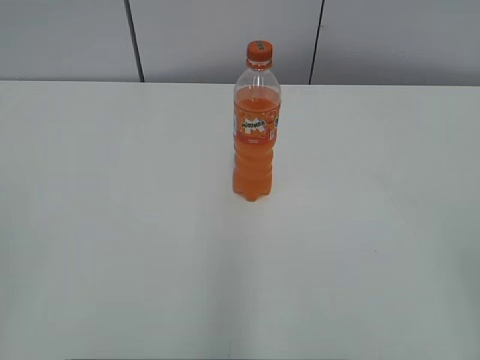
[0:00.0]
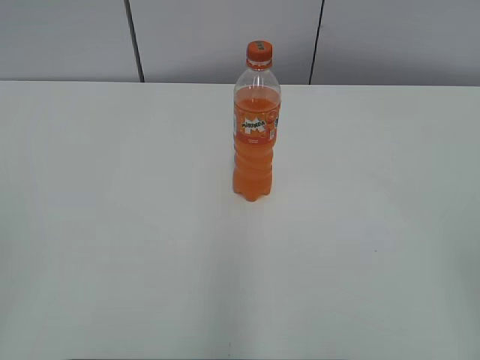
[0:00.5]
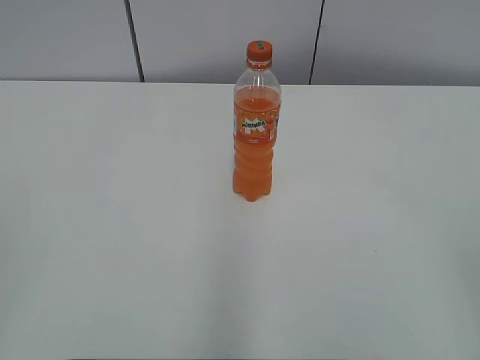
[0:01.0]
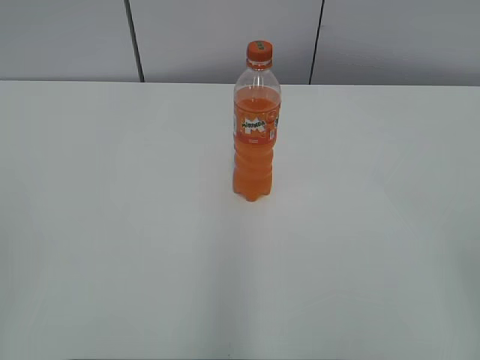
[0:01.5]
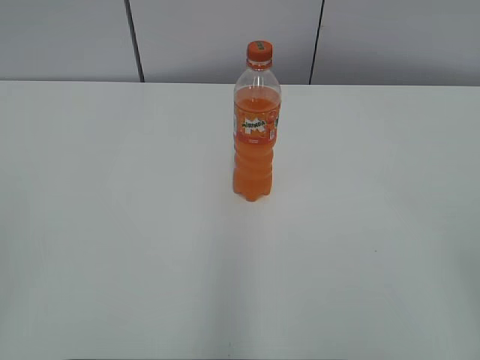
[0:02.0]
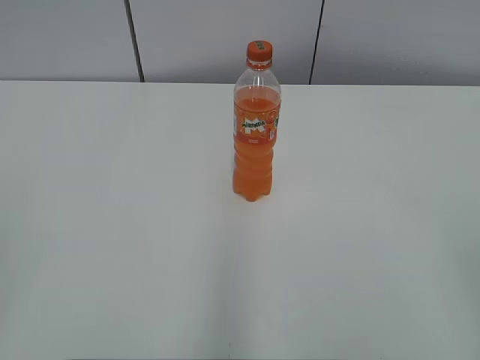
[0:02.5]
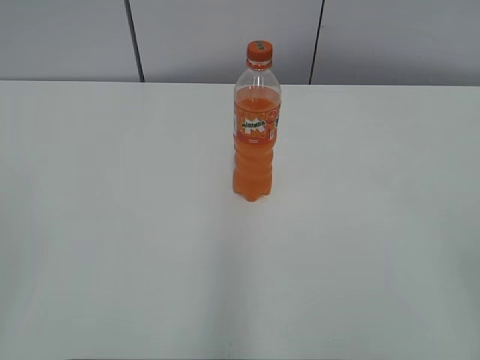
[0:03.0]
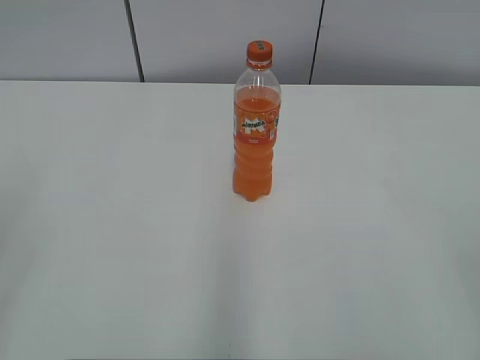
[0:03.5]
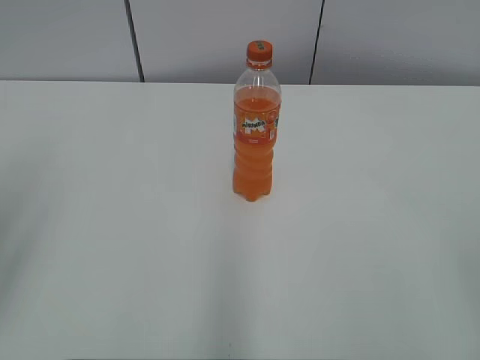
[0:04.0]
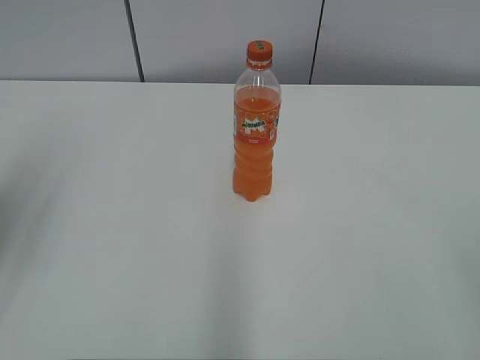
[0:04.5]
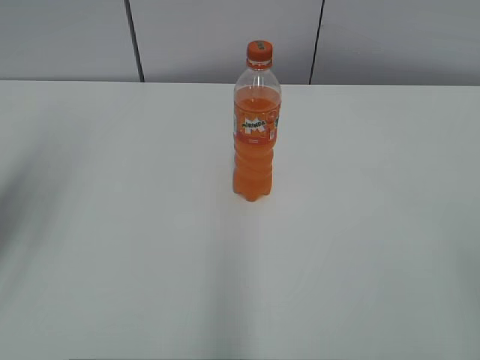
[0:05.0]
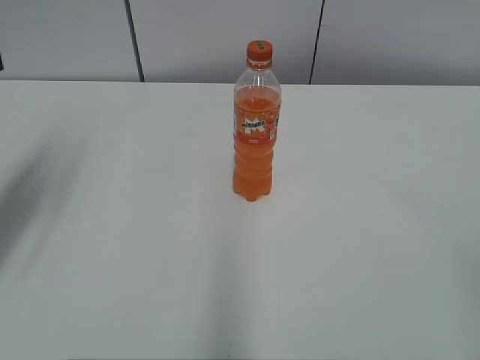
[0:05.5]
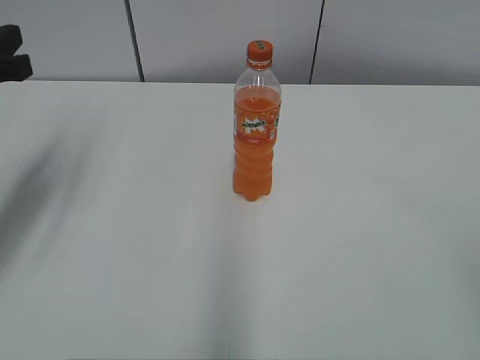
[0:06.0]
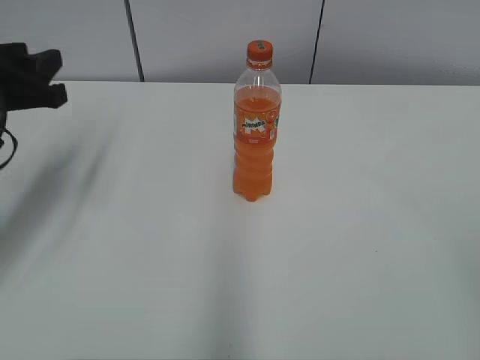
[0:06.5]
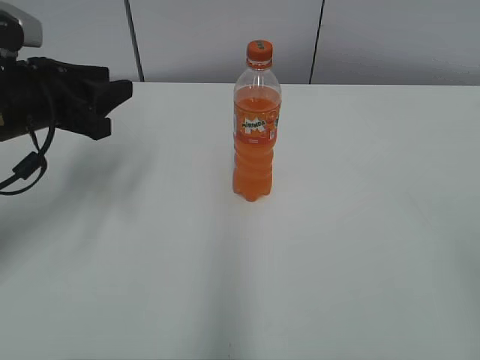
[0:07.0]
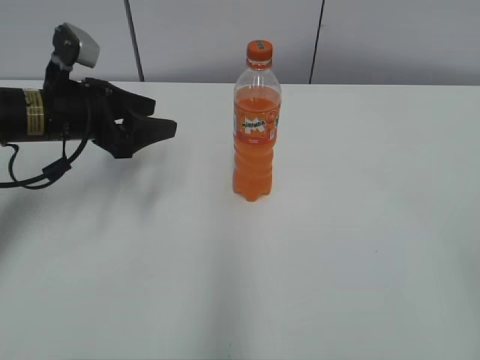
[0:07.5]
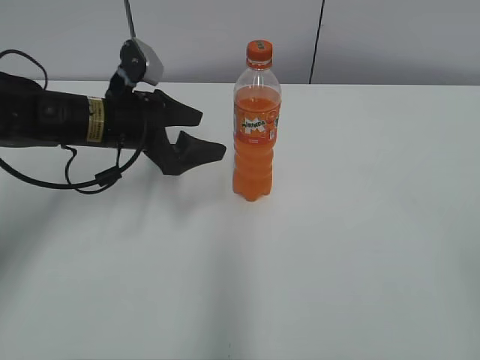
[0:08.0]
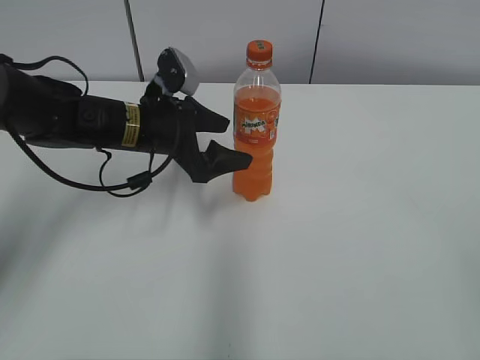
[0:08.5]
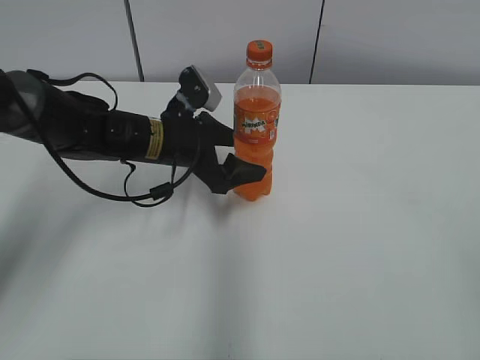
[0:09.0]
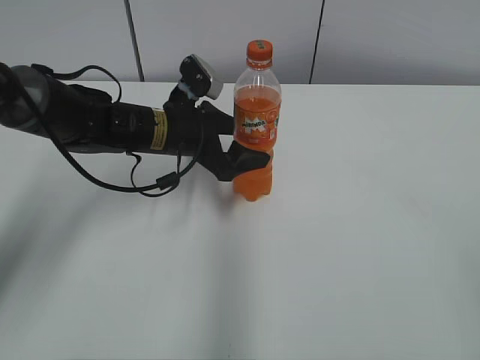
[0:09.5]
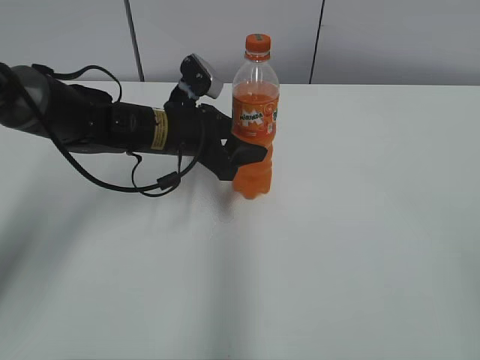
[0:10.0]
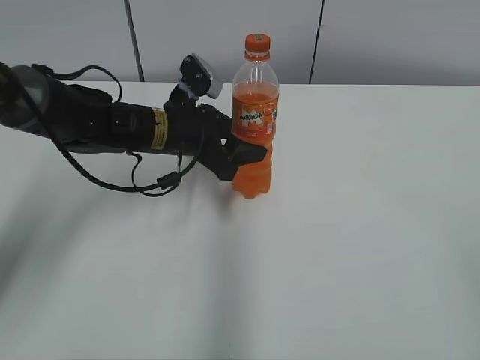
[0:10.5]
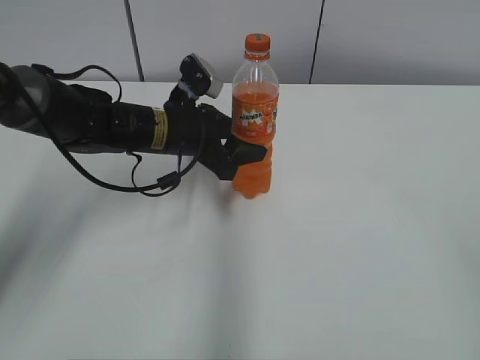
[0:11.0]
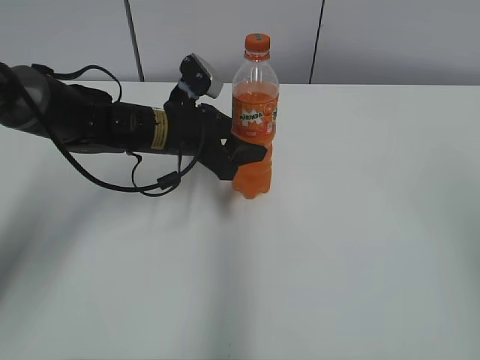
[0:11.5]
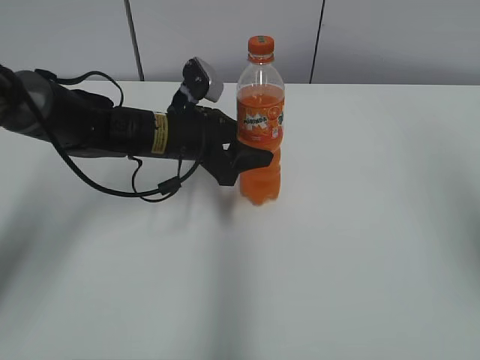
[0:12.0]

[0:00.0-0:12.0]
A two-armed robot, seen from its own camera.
Step, 0:00.0 to 0:09.5: Grab the Mirinda with the left hand.
0:04.0 to 0:06.0: The left gripper goes some 15 cm forward.
0:06.0 to 0:08.0: The left gripper moves to the right, downward and forward, some 20 cm, and opens.
0:08.0 to 0:10.0: The left gripper moves to the right, about 5 cm, and closes up.
0:10.0 to 0:12.0: The right gripper travels forward and upward by approximately 20 cm.

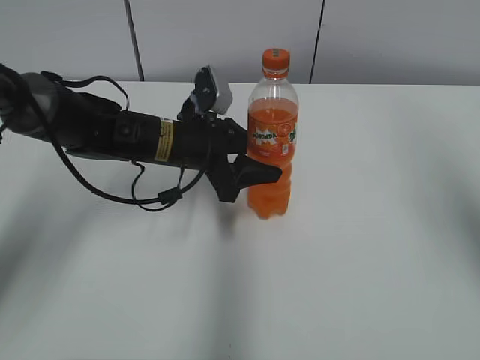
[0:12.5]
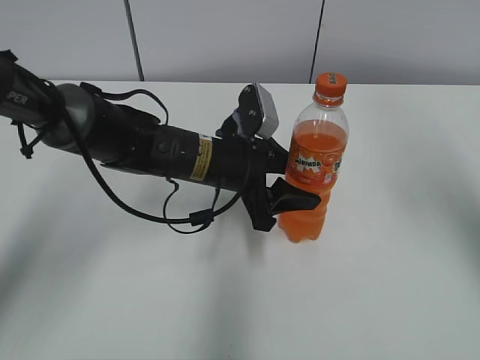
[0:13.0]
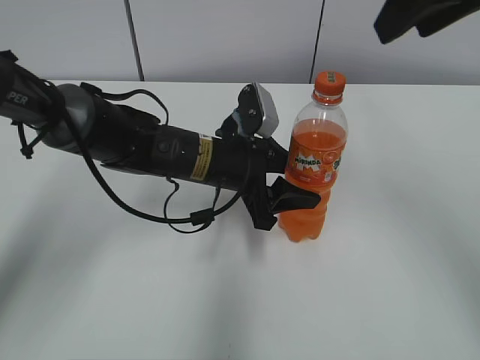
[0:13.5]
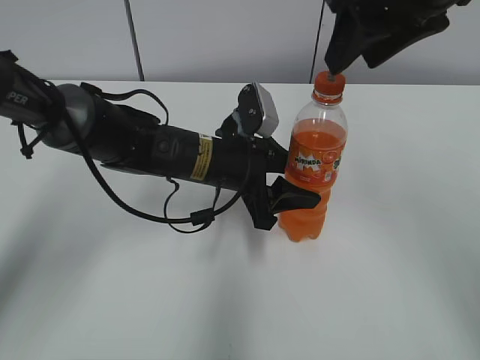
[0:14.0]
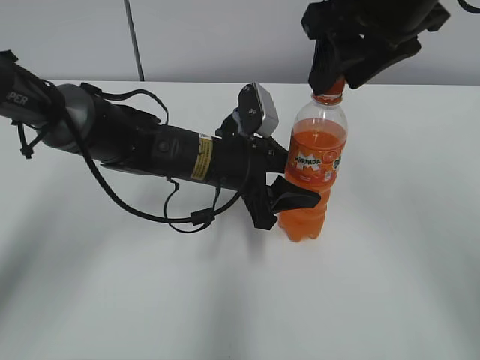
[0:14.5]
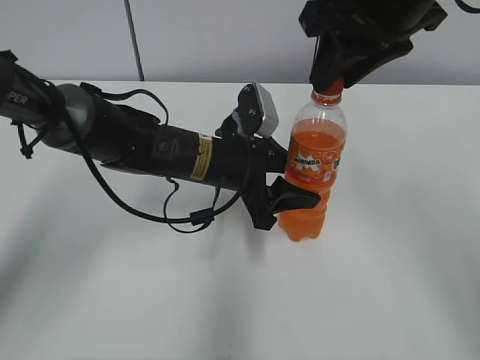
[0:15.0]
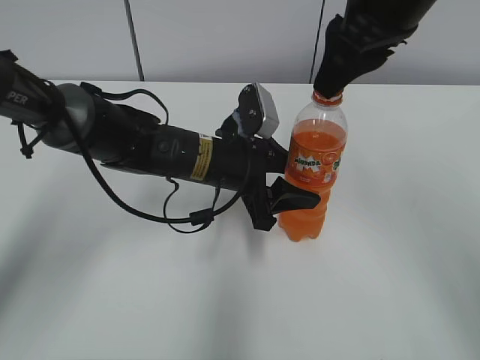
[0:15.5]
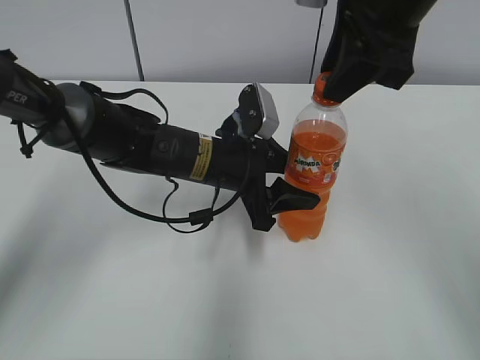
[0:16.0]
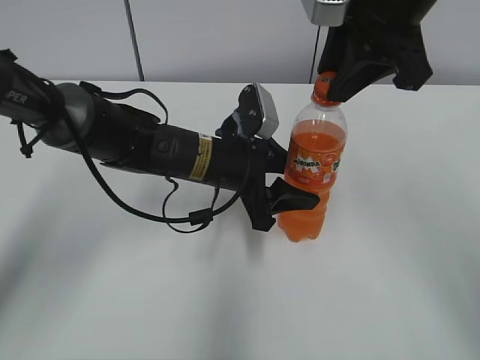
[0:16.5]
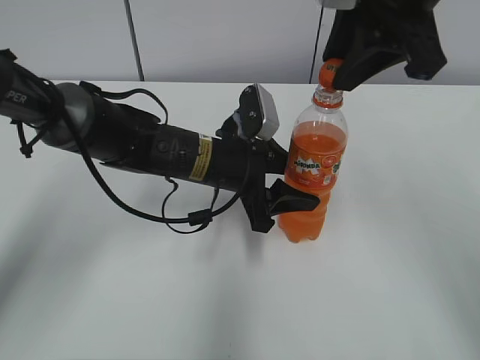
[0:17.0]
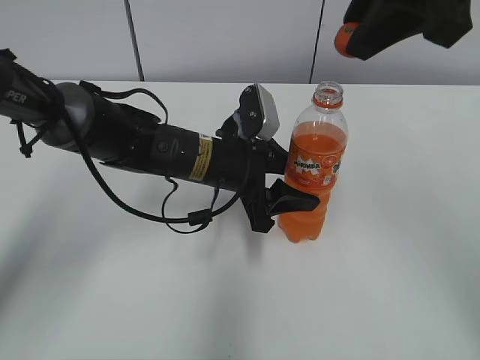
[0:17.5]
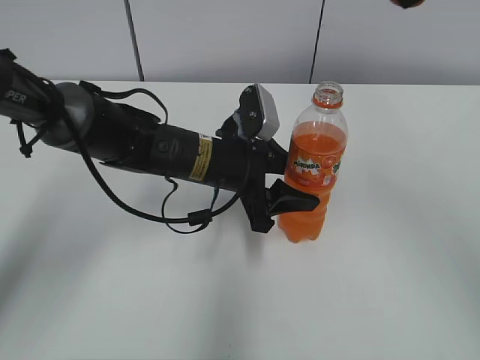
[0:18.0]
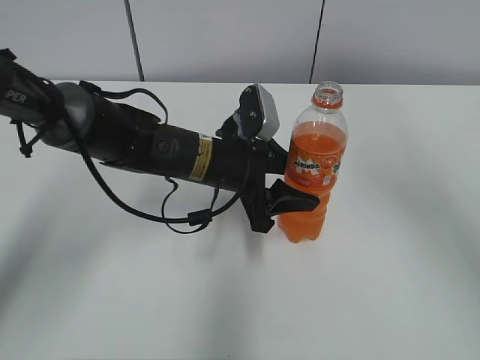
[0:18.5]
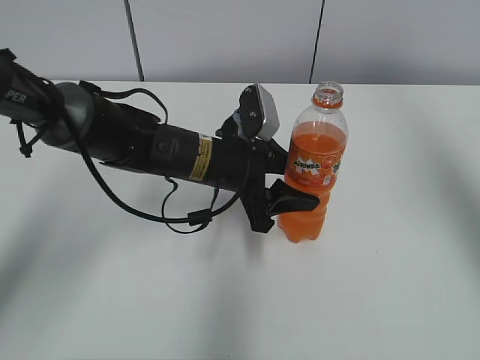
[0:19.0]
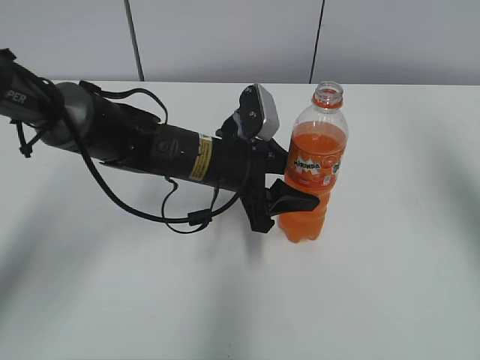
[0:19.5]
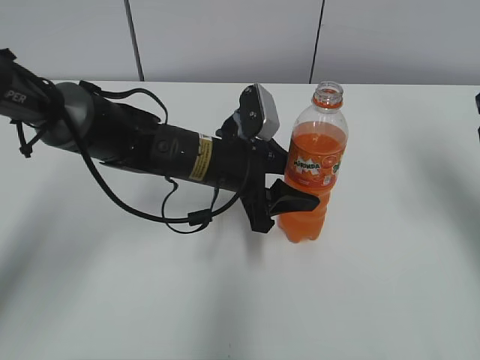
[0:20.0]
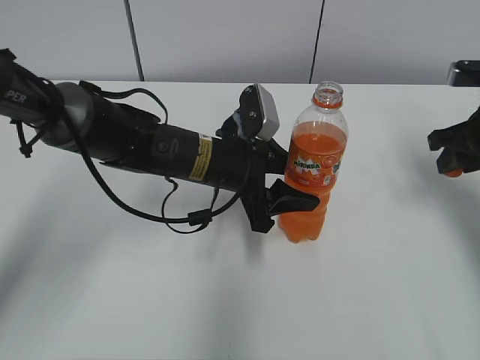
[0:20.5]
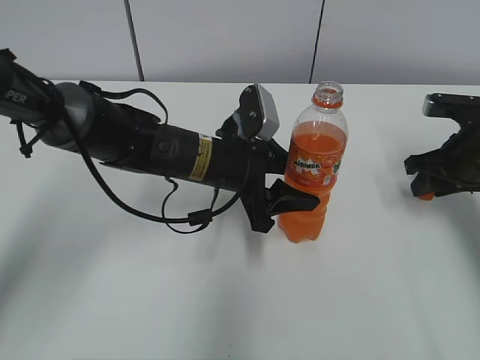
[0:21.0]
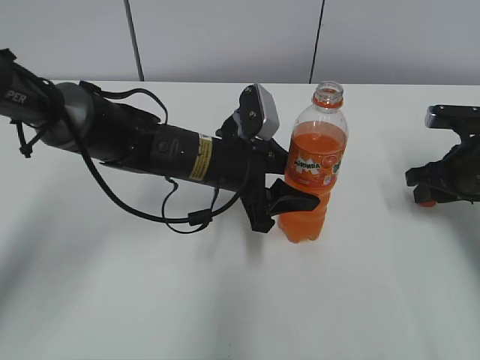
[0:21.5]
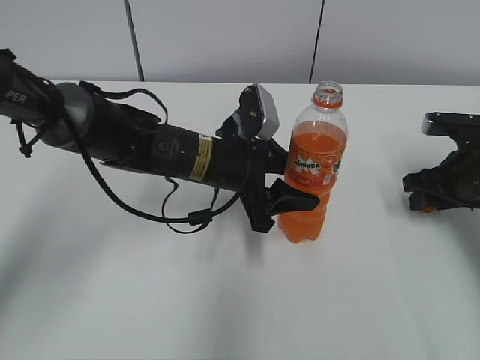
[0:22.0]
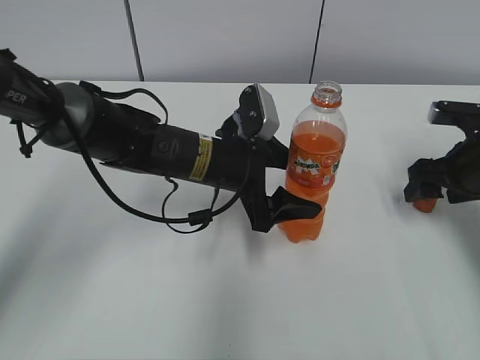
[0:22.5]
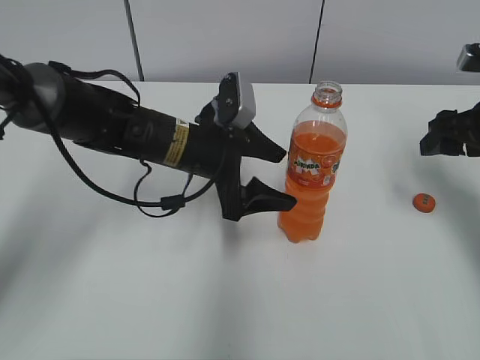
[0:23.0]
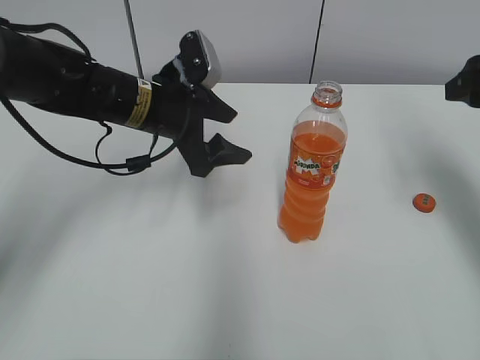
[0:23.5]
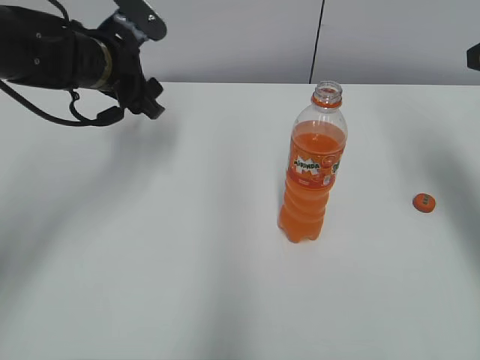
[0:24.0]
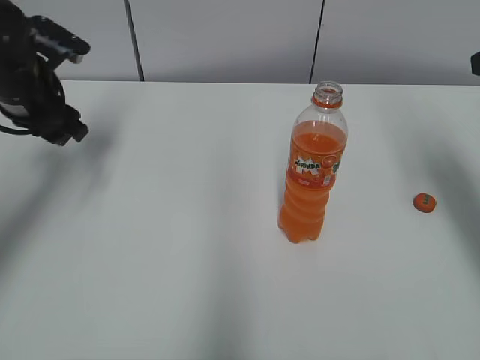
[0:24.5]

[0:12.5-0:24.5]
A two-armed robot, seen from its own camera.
Step, 0:17.0 to 0:22.0: Place the bottle cap on the right.
0:12.5 to 0:14.5: The left gripper moves about 5 cm, while the right gripper shifts approximately 20 cm to the left and forward.
0:14.5 to 0:16.5: The right gripper closes.
0:16.5 to 0:18.5: The right gripper shifts roughly 15 cm upward, to the right and backward.
0:18.5 to 0:20.5: The right gripper goes approximately 25 cm downward.
0:20.5 to 0:22.5: The left gripper opens, while the right gripper moves downward, roughly 5 cm, and opens up.
0:22.5 to 0:24.5: The left gripper travels to the left by approximately 20 cm. Meanwhile the right gripper is displaced upward by approximately 15 cm.

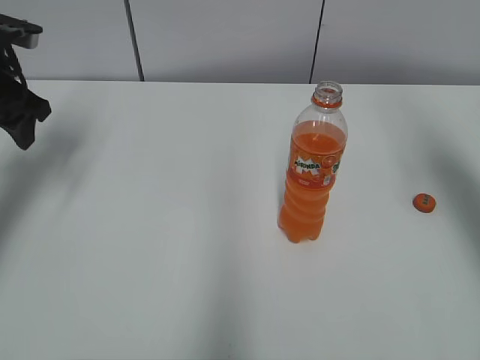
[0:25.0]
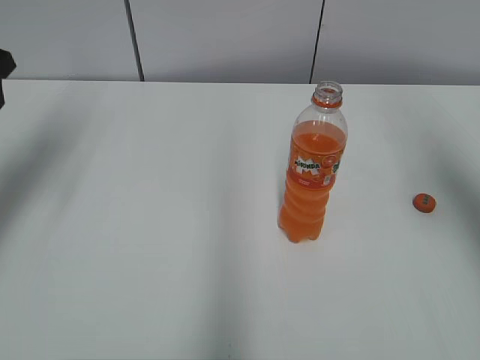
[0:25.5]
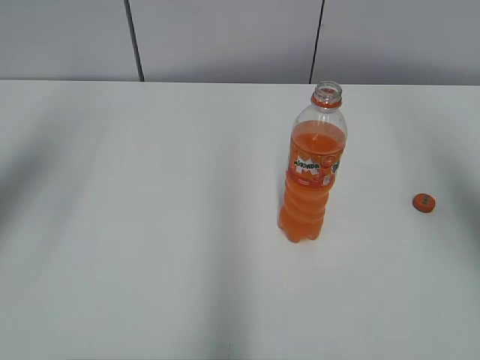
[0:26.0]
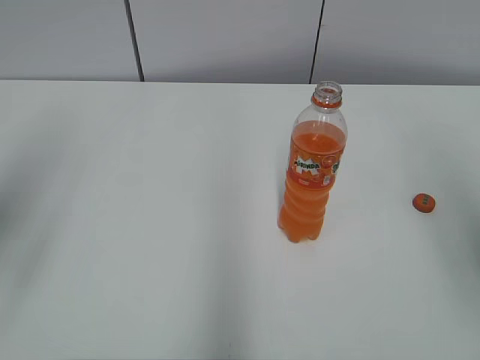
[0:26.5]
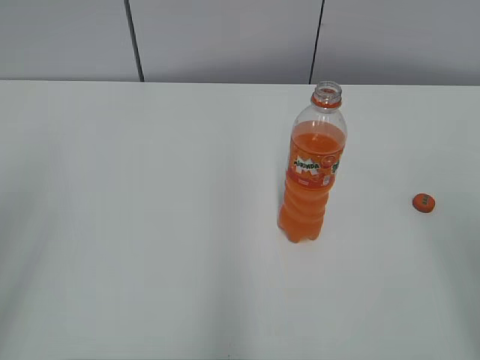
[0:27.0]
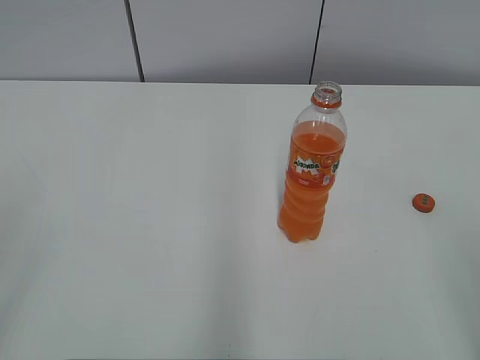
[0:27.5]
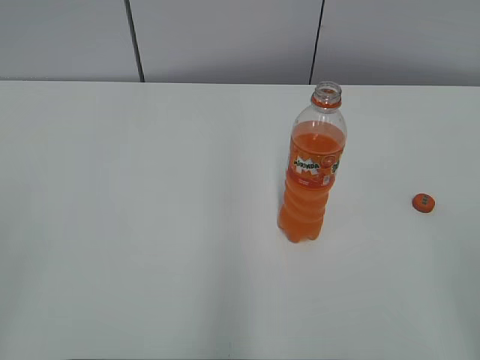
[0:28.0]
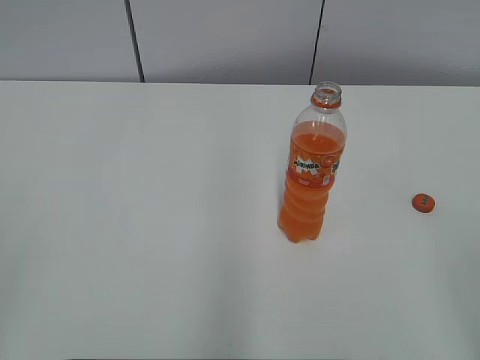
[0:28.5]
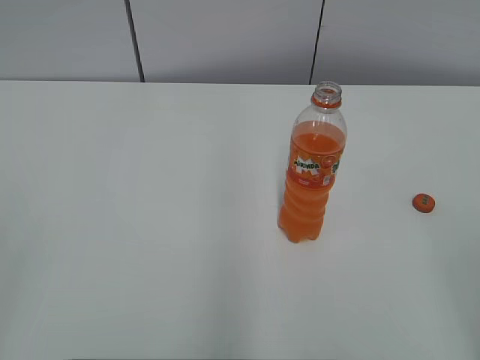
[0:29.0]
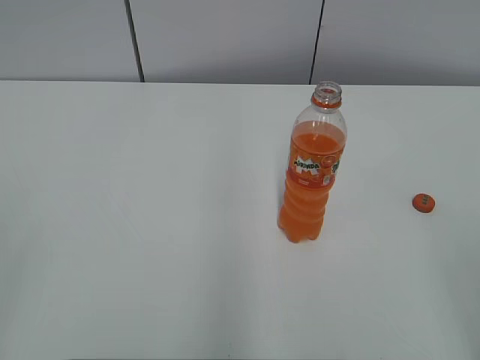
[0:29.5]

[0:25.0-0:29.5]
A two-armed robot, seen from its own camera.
0:25.0 to 0:27.0: The grippers both shift backward by approximately 25 cm.
